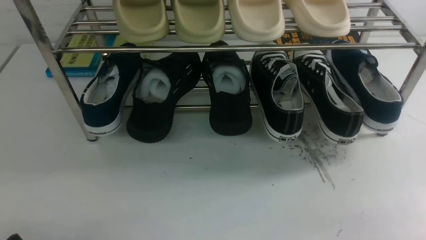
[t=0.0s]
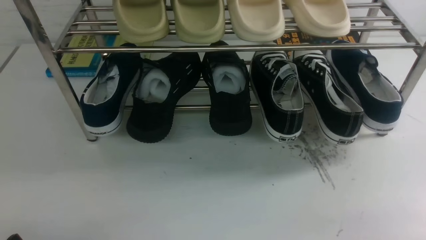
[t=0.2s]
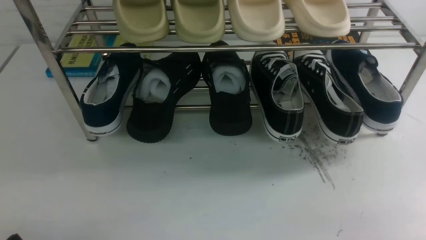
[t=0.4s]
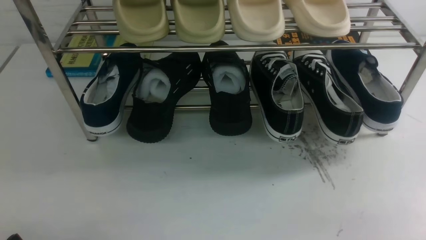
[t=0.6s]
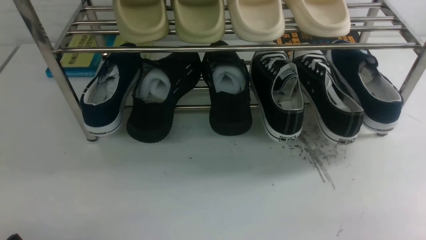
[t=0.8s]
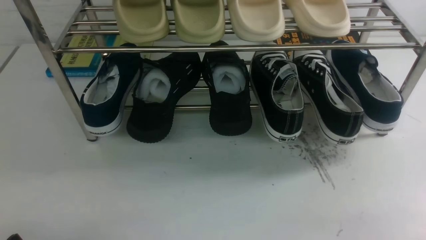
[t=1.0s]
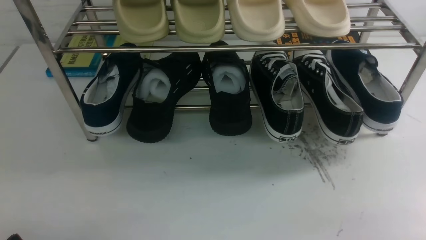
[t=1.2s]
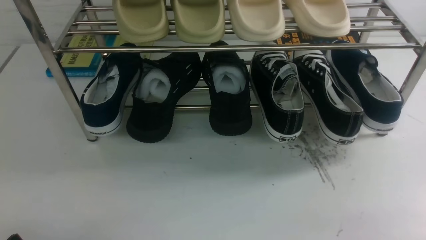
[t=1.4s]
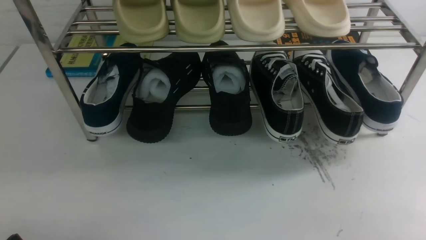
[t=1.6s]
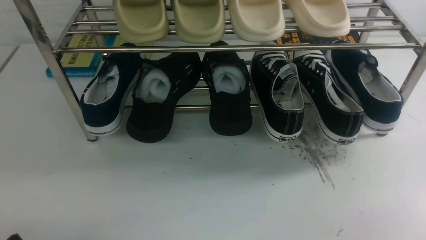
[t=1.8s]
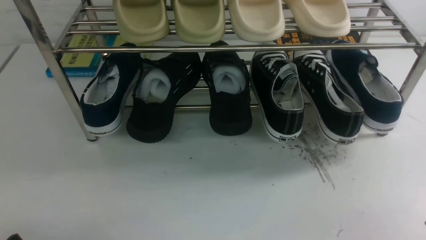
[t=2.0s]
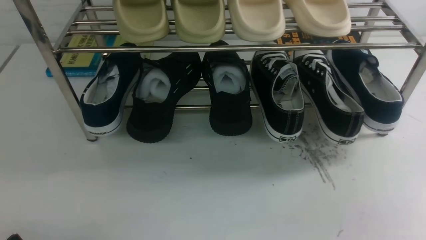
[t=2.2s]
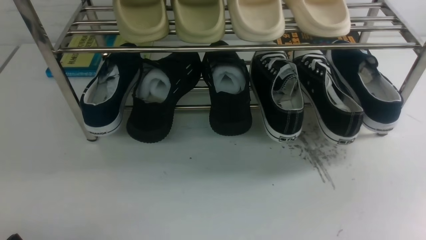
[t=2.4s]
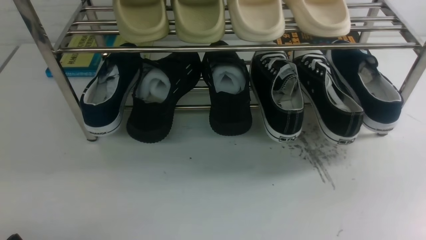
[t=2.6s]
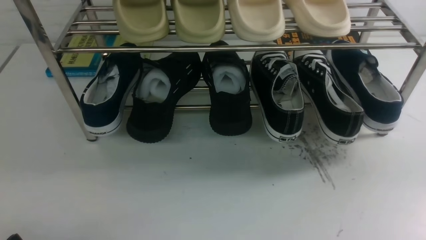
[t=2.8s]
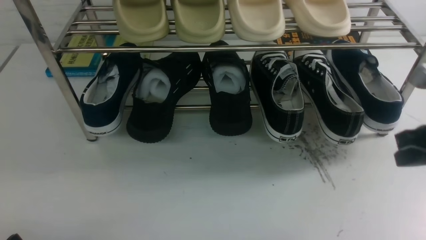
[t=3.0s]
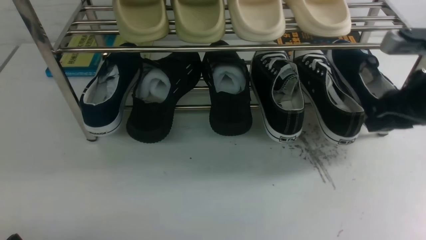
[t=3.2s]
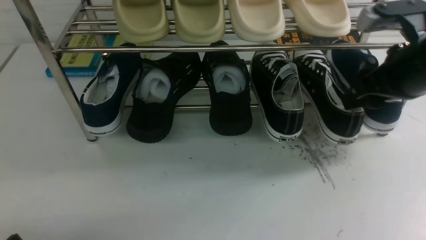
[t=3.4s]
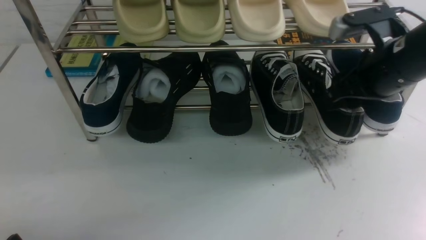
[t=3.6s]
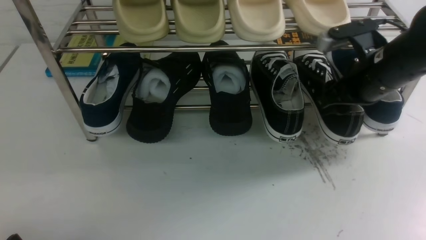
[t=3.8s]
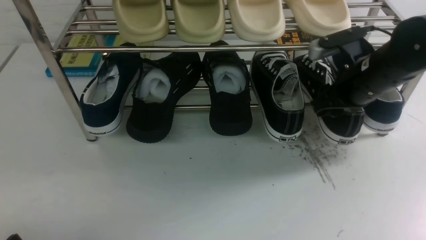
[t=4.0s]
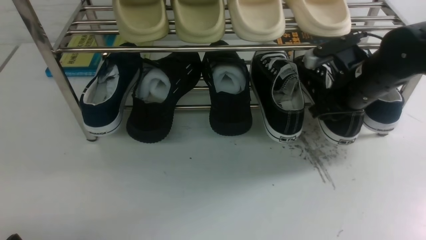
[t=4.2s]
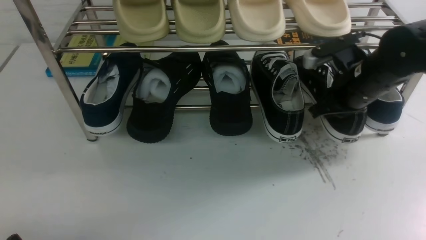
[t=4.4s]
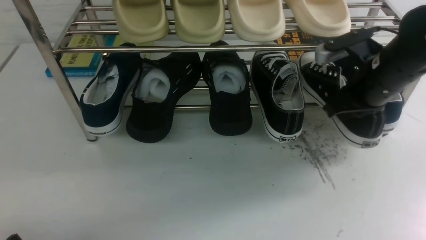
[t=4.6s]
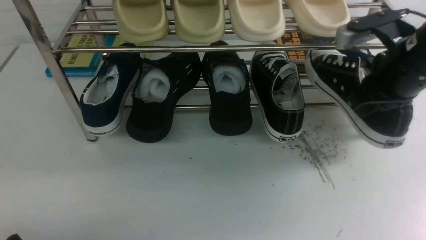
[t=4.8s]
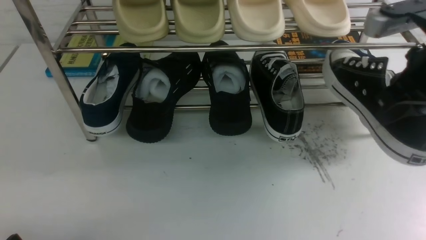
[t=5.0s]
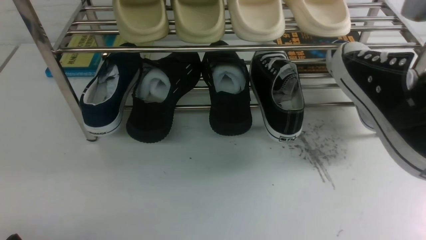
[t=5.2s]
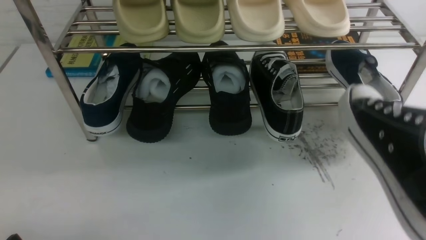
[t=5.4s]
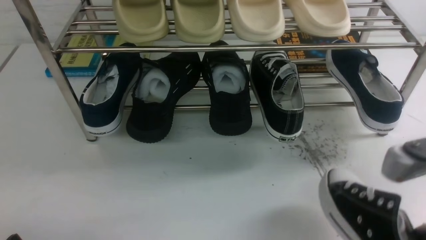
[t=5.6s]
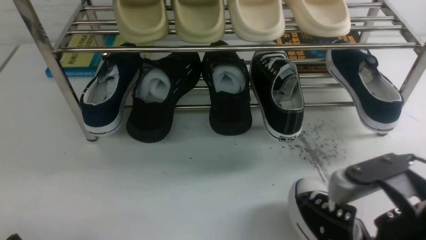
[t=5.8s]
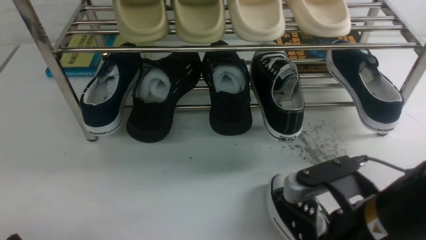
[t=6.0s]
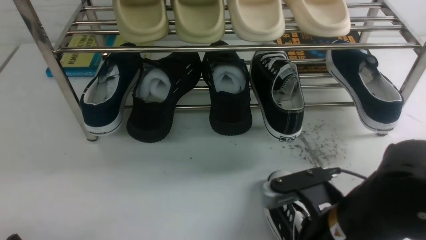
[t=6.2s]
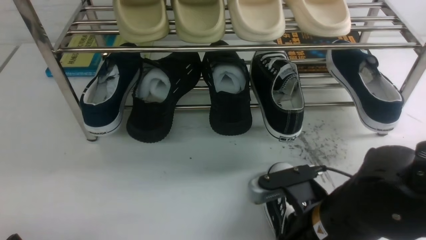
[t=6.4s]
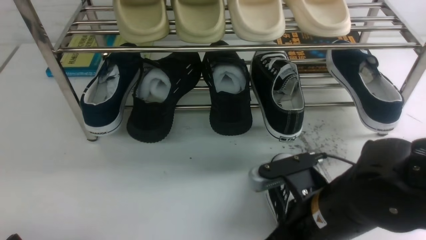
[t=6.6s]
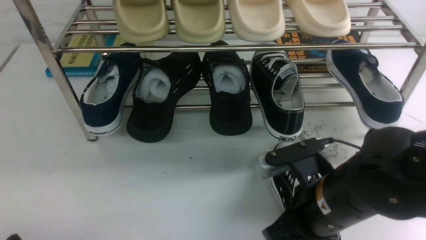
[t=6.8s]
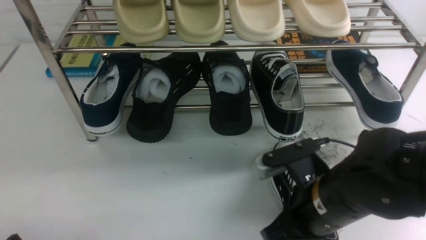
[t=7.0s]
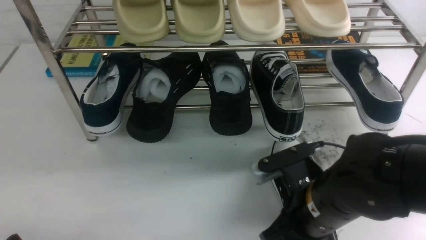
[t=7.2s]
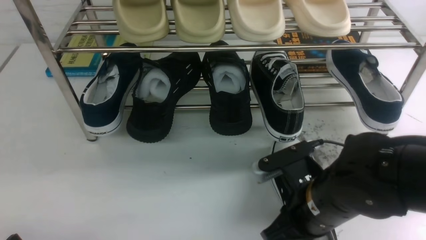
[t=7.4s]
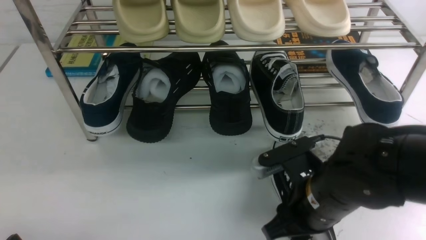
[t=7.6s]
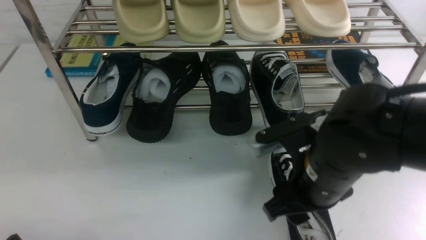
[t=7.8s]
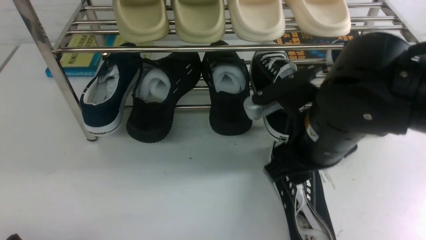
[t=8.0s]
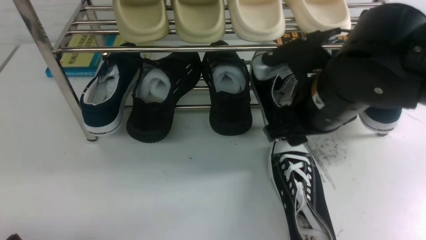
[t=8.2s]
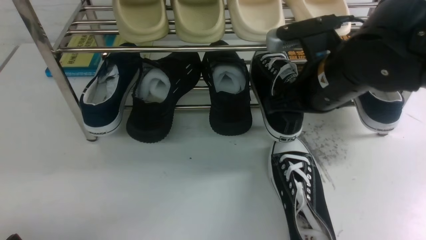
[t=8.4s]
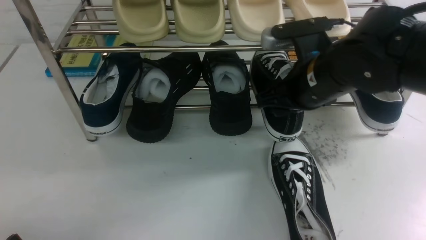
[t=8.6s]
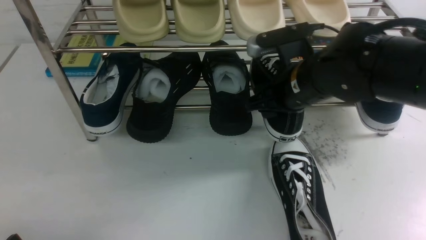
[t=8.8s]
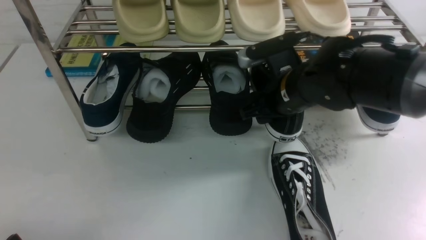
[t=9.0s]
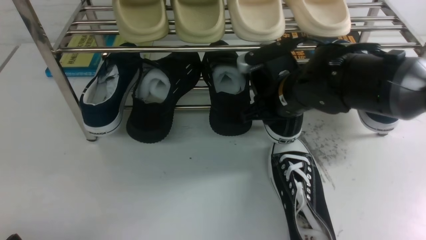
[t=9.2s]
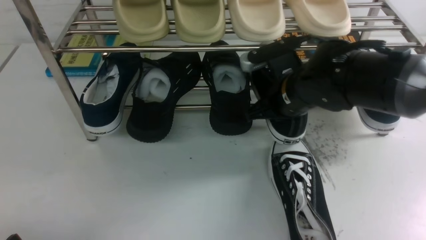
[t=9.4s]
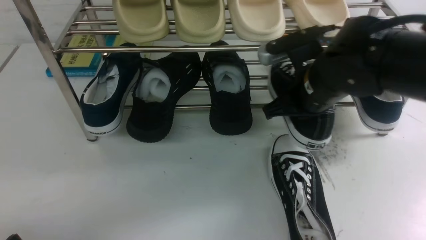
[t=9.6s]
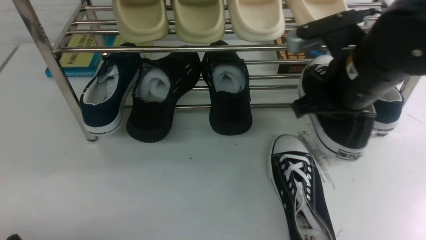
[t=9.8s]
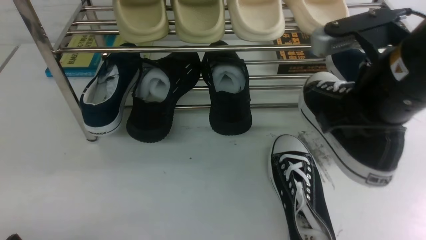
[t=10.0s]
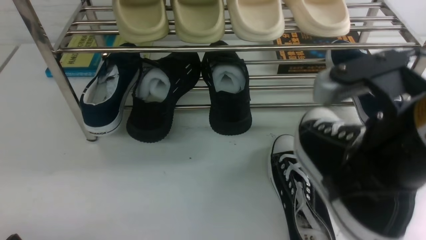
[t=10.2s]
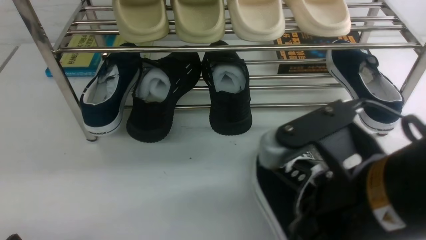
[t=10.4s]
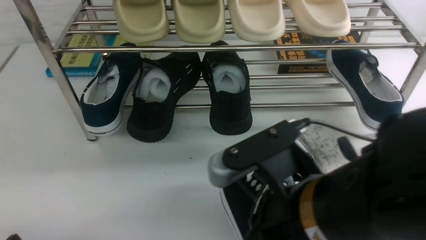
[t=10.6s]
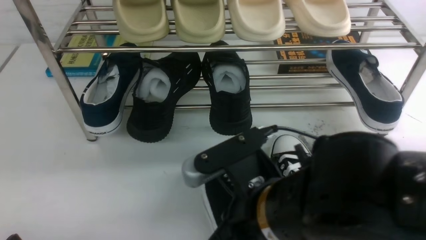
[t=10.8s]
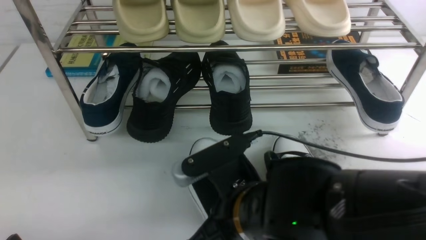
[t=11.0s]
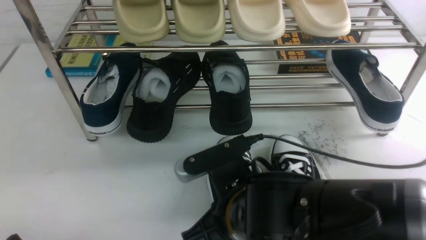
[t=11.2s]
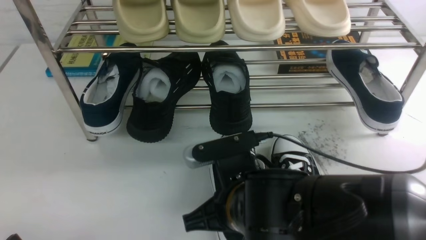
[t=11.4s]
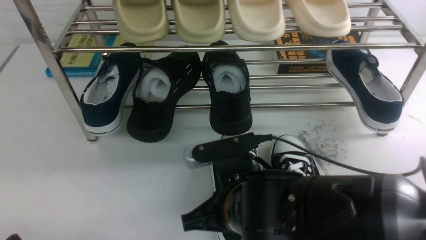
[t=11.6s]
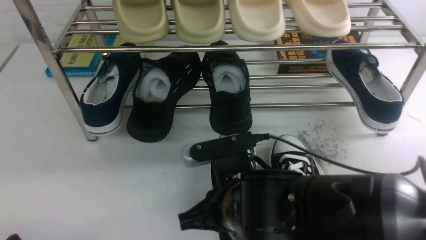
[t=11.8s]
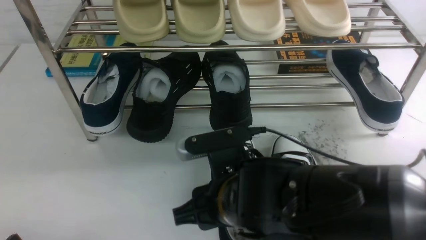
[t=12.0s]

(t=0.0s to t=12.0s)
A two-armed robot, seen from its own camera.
Step, t=0.0s - t=4.6s: use the right arm to clamp a shoe on the right side of the shoe rack.
Step, t=5.0s - t=7.8s: use the right arm to take out the clamped shoe from the shoe rack and put it down.
Step, t=8.0s - t=9.6s: use the right arm to clamp a shoe in the middle of the shoe rack.
t=1.6s - t=3.0s: The right gripper travels forward and upward by about 20 cm.
t=3.0s - t=4.4s: The right gripper is displaced forward and to the left by some 15 cm, and opens, then closes again.
t=4.4s - t=6.0s: The right gripper goes about 20 cm backward.
t=6.0s - t=7.6s: The right gripper goes some 5 cm forward, and opens its fingers.
t=7.6s - t=9.0s: The right gripper heads forward, covering some 15 cm.
t=9.0s - t=10.4s: The right gripper travels backward by approximately 20 cm, and closes.
t=10.4s - t=12.0s: The right gripper moves to the left and downward, about 10 cm, and opens its fingers.

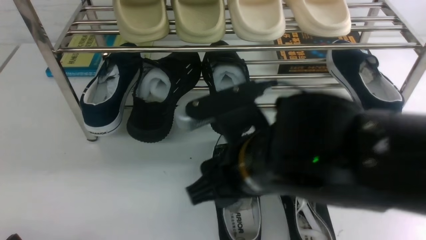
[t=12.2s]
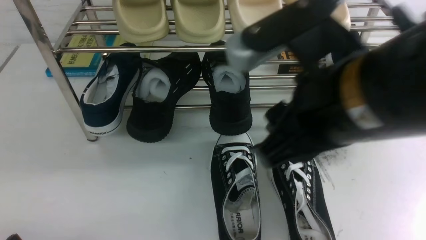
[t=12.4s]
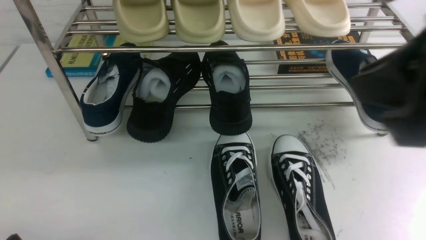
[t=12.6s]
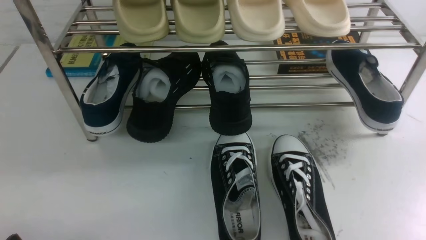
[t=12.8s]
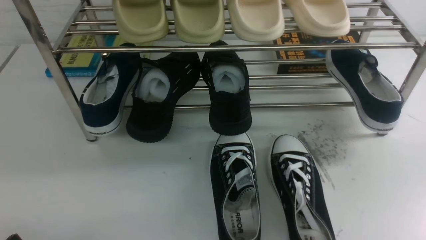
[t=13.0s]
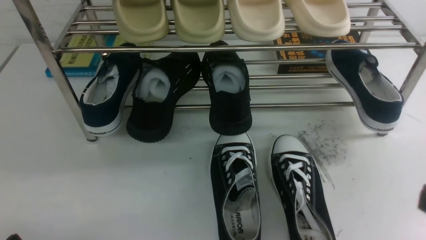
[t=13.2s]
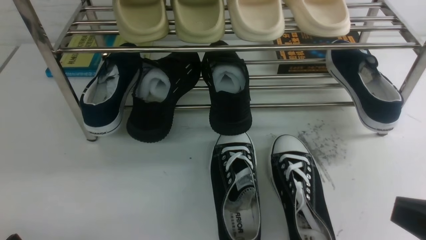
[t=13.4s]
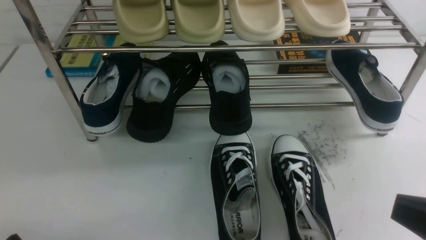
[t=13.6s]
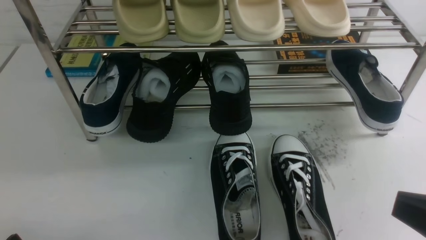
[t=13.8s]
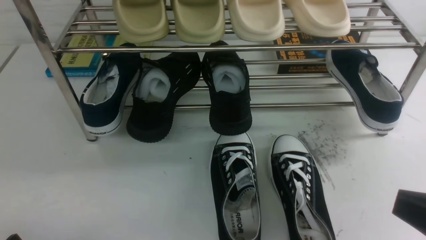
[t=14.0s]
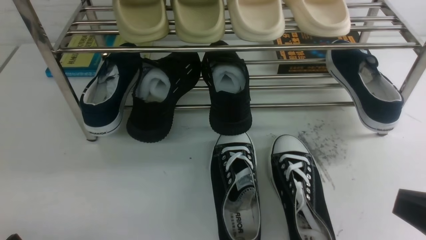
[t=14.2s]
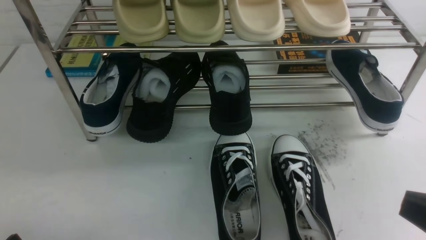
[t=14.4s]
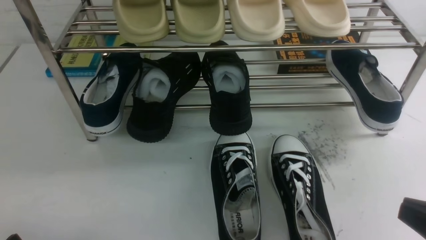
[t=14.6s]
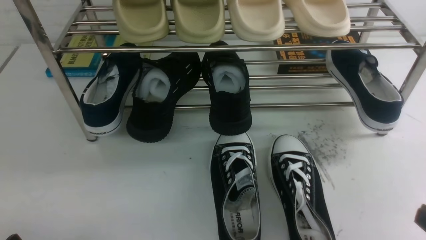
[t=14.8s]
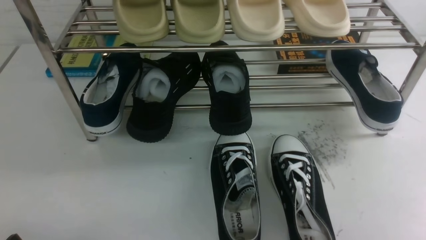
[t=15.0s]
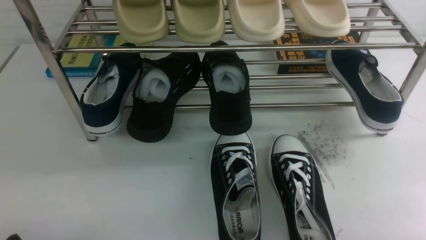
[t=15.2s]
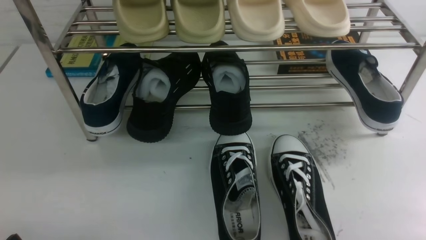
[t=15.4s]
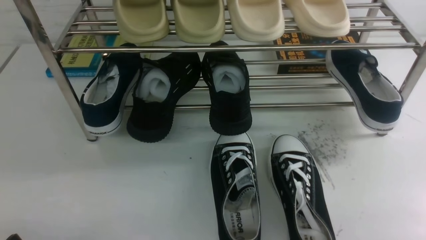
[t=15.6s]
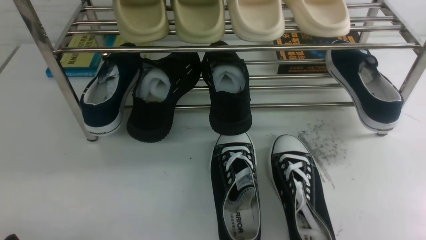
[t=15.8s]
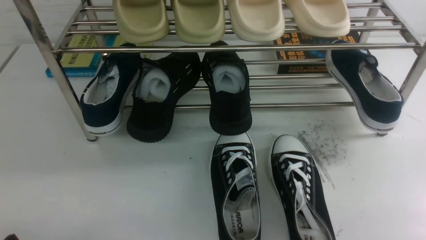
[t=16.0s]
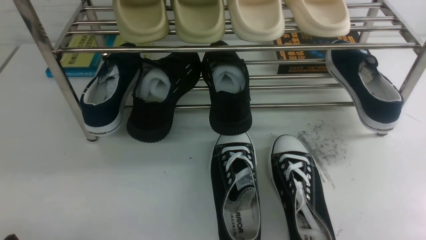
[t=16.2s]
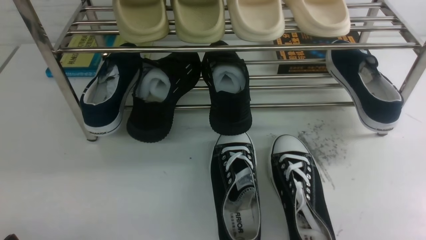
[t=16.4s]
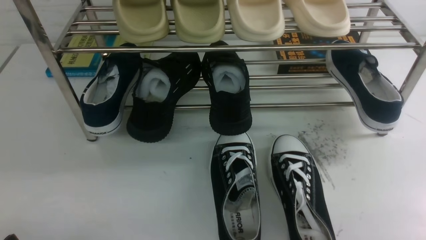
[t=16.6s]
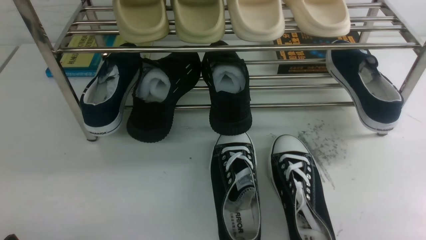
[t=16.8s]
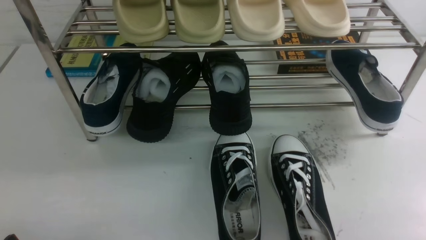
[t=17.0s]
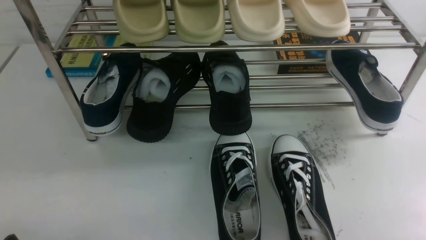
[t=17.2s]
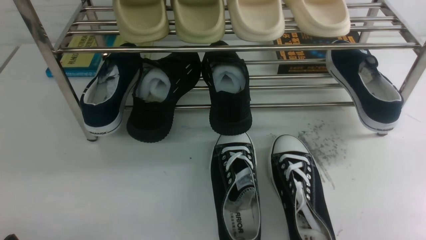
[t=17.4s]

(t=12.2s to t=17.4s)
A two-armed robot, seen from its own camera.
t=12.2s - t=14.0s: The right gripper heads to the right and backward, covering some 25 cm, and closes up.
t=14.0s - t=15.6s: The right gripper travels downward and to the right by approximately 15 cm.
t=15.6s - t=17.4s: Both grippers stay about where they are.
